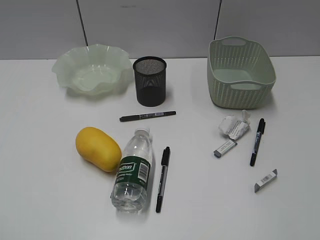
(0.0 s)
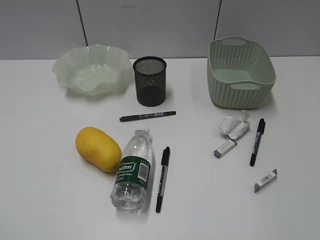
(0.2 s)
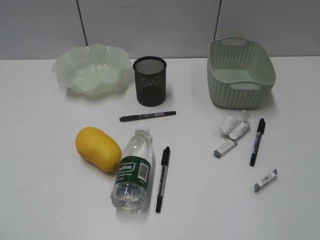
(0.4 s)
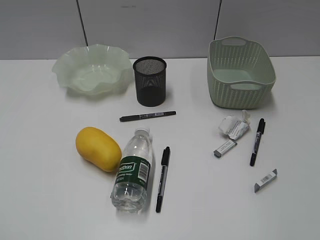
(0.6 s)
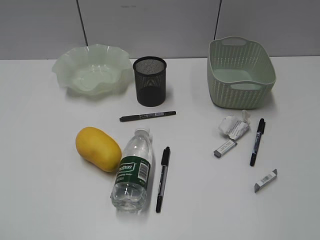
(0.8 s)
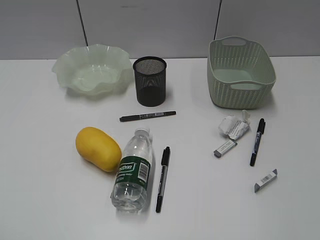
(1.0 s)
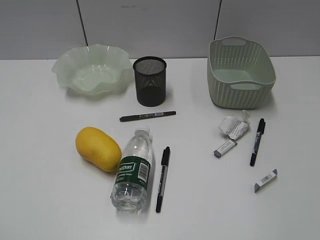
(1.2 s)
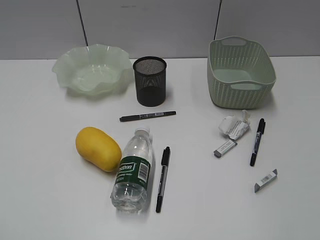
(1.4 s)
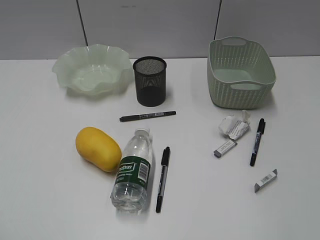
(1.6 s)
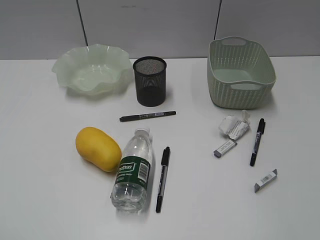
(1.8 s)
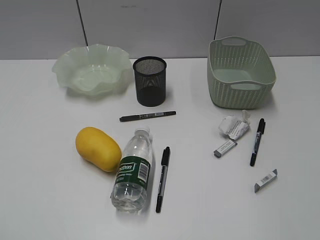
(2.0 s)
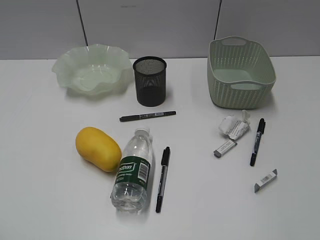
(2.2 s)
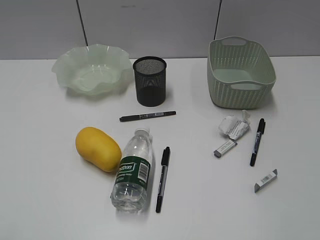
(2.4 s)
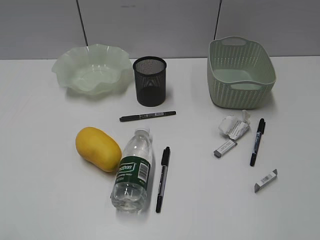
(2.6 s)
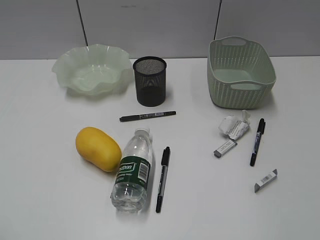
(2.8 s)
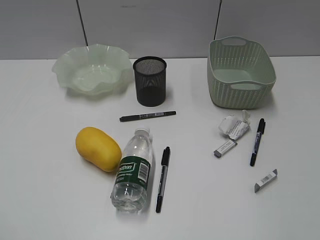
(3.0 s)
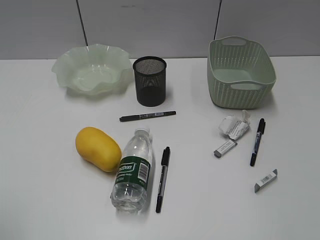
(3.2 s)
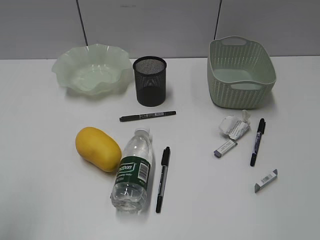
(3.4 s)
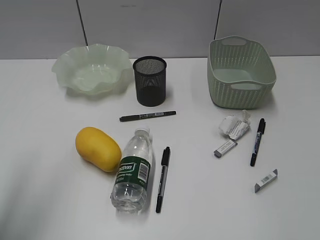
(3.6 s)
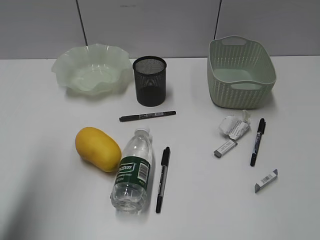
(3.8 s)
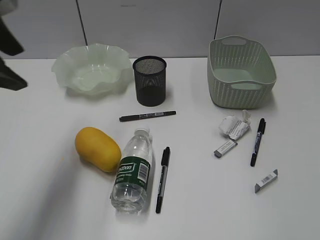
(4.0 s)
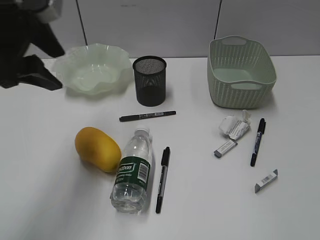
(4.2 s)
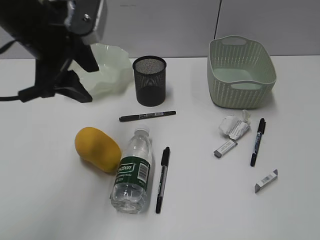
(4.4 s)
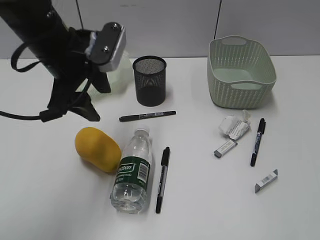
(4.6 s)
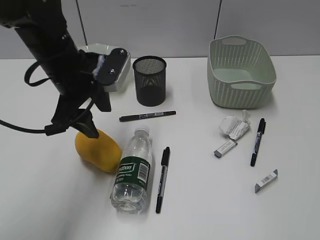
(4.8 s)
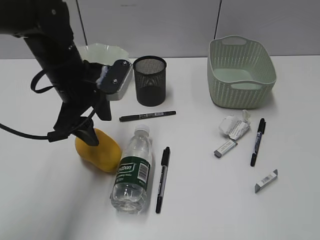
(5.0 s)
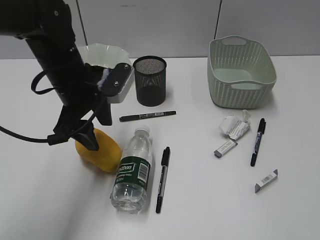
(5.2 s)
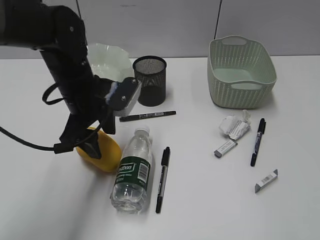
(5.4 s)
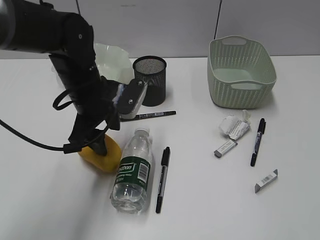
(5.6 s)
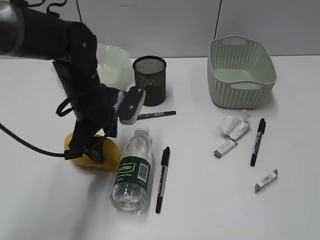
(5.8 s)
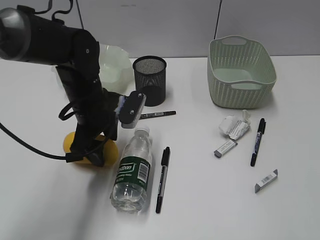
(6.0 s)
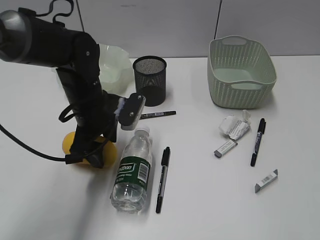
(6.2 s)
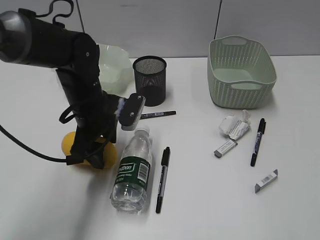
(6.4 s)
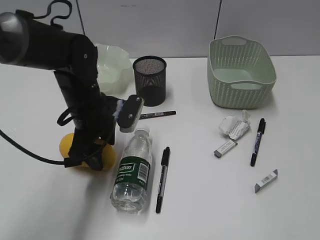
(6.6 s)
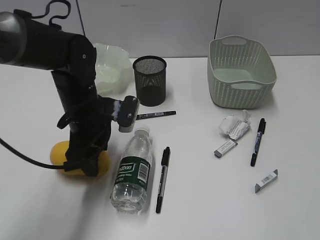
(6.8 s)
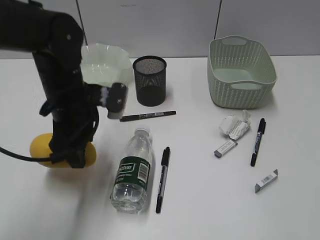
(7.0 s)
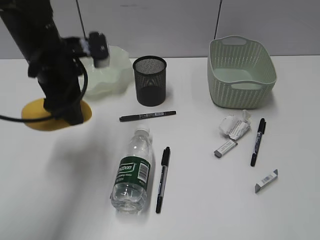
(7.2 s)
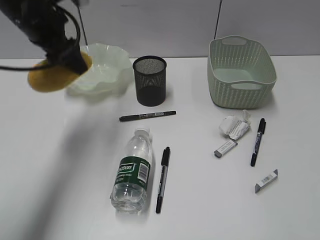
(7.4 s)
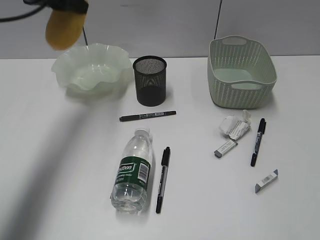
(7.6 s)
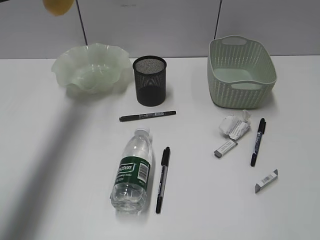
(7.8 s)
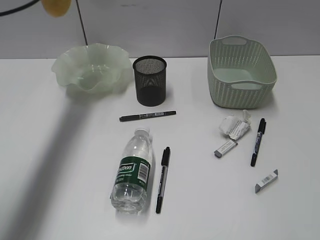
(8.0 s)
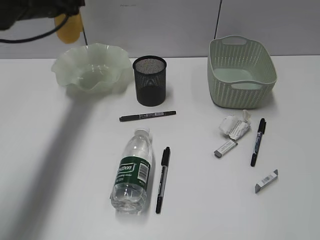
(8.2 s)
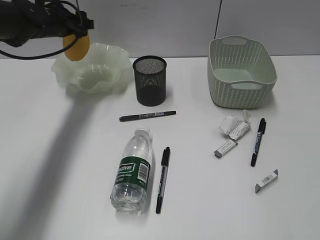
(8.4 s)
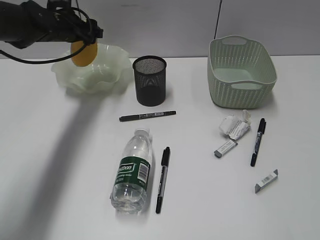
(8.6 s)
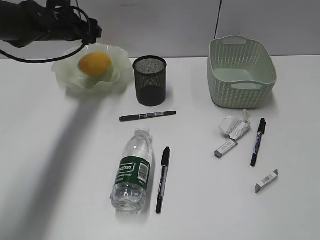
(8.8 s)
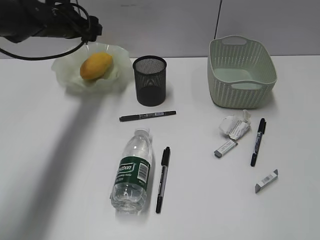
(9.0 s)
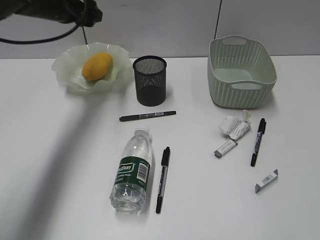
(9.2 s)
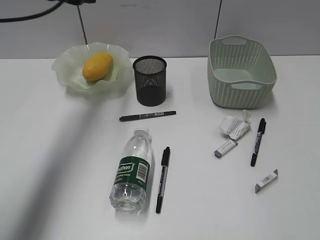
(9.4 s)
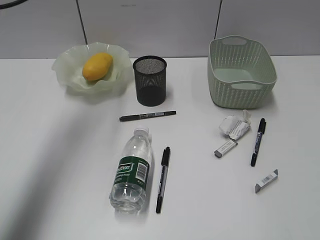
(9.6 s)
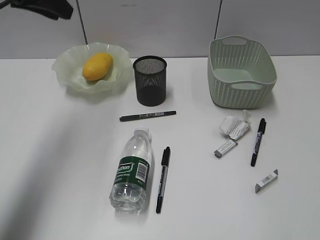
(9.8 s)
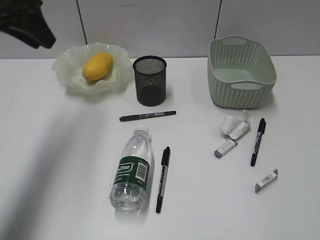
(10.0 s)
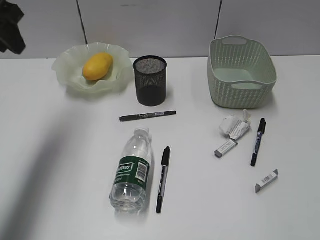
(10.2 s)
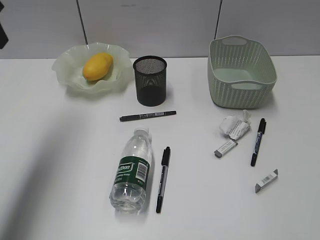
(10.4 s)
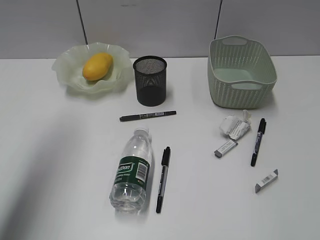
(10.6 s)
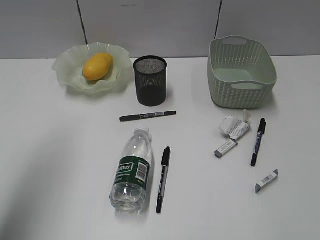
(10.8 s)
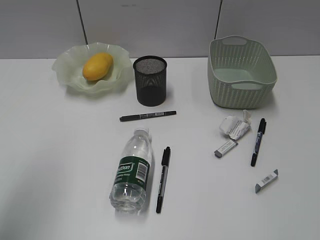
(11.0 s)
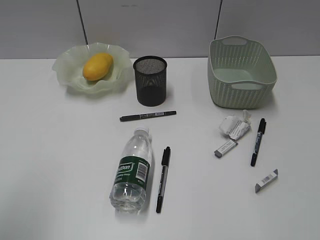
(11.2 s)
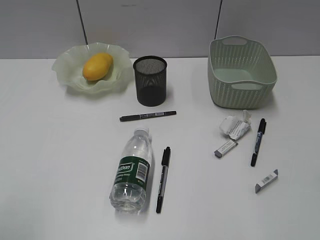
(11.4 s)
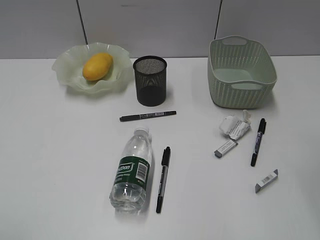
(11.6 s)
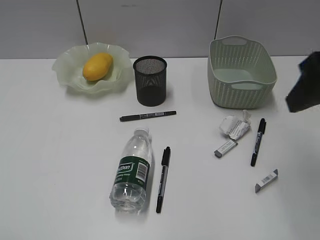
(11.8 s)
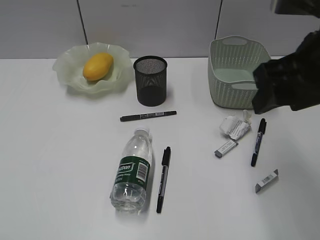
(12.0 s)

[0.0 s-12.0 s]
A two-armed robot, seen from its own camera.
Step, 4.0 to 6.6 s: Grasp the mango with left gripper.
Step, 6.8 to 8.8 s: Place the mango in the plate with left gripper.
3.0 to 4.4 s: The left gripper is displaced forward and to the right by approximately 35 cm.
4.4 to 6.0 s: The left gripper travels downward by roughly 15 cm.
6.0 to 7.6 s: The left gripper heads upward, to the left and forward, covering roughly 20 cm.
7.6 to 9.0 s: The left gripper shifts approximately 15 cm downward and forward.
9.0 to 10.4 s: The left gripper travels backward, upward and to the left by roughly 25 cm, and closes its fingers.
10.4 to 12.0 s: The right gripper is displaced forward and to the left by approximately 25 cm. The left gripper is displaced backward by approximately 35 cm.

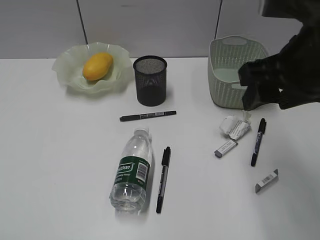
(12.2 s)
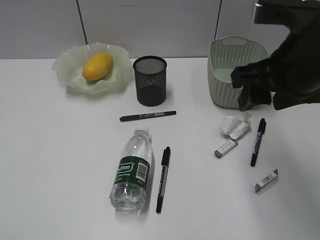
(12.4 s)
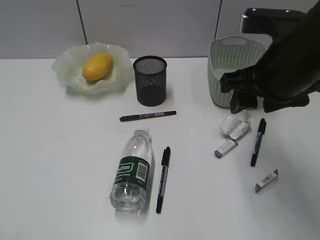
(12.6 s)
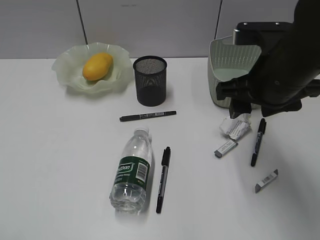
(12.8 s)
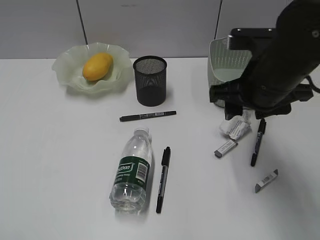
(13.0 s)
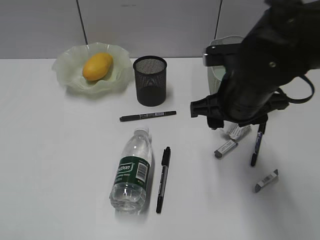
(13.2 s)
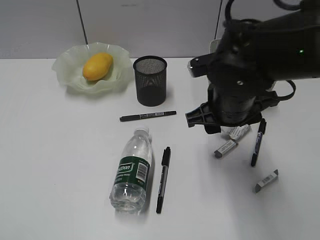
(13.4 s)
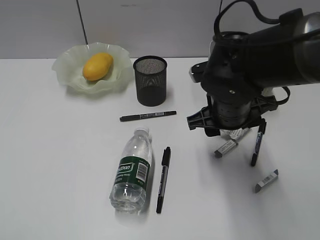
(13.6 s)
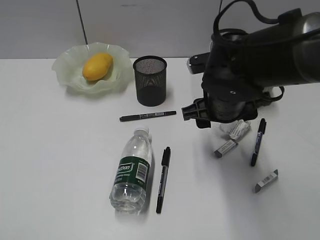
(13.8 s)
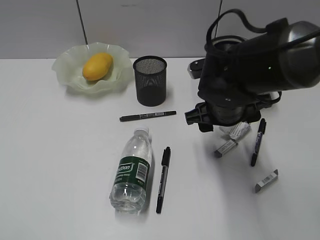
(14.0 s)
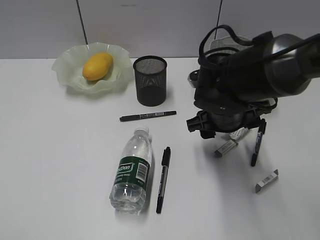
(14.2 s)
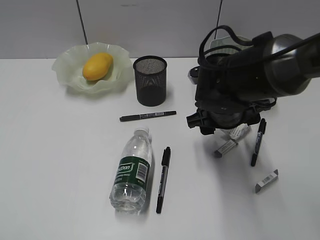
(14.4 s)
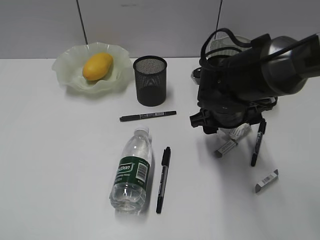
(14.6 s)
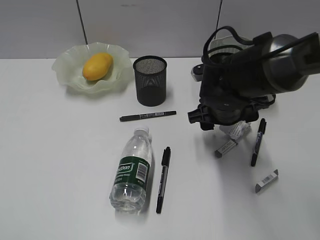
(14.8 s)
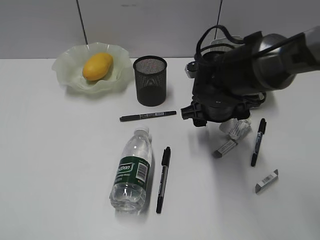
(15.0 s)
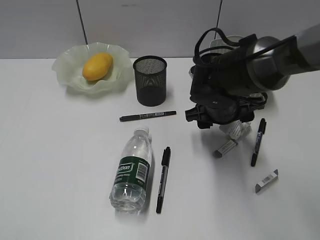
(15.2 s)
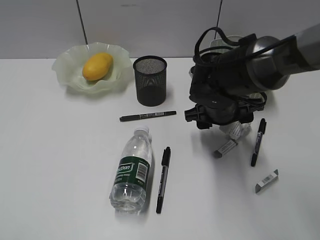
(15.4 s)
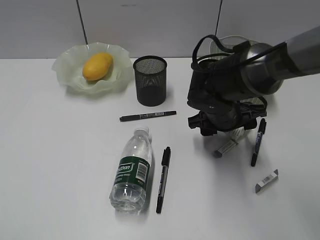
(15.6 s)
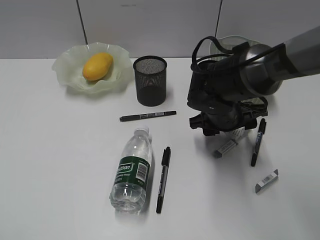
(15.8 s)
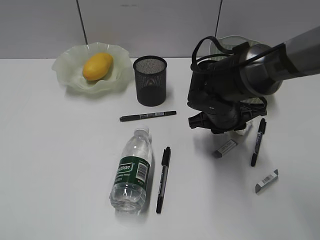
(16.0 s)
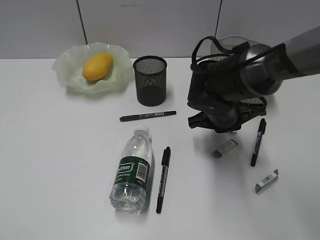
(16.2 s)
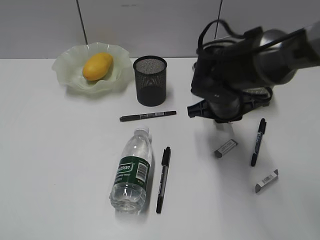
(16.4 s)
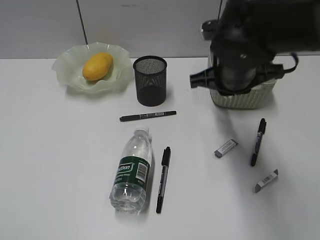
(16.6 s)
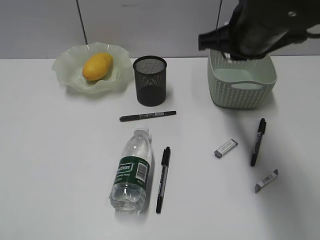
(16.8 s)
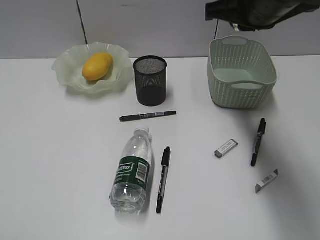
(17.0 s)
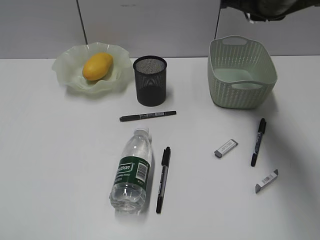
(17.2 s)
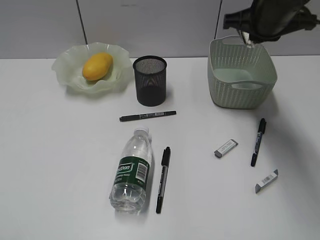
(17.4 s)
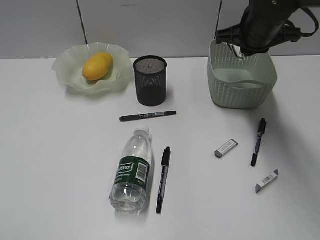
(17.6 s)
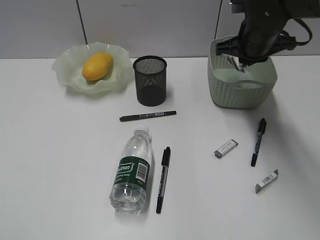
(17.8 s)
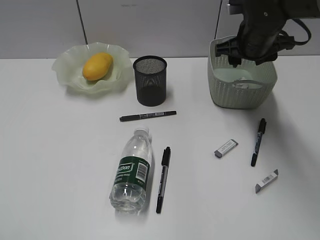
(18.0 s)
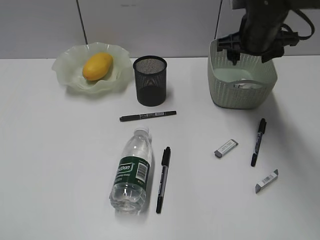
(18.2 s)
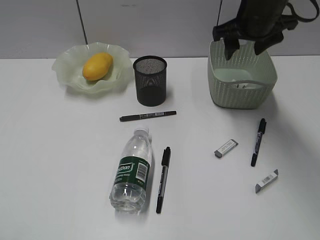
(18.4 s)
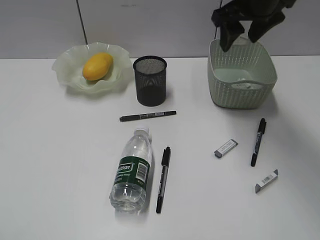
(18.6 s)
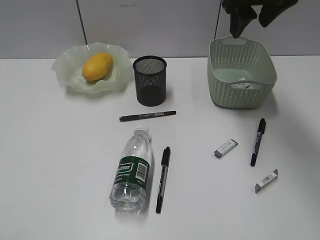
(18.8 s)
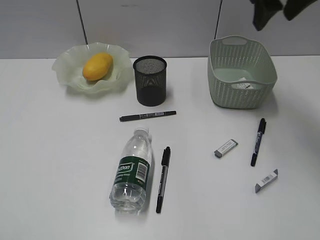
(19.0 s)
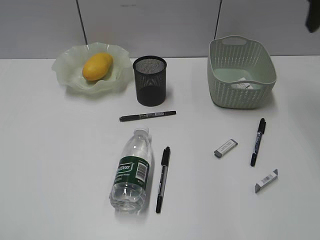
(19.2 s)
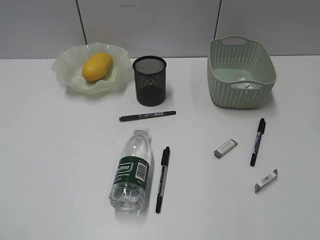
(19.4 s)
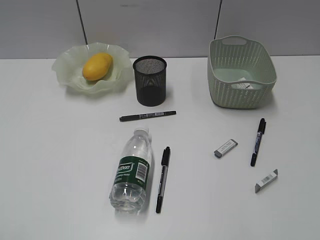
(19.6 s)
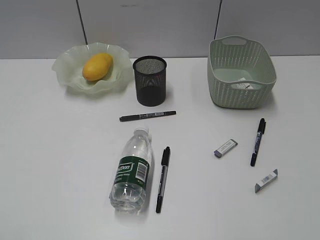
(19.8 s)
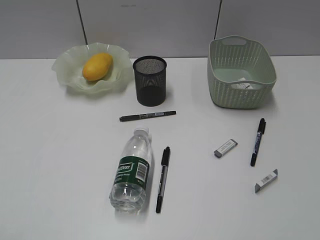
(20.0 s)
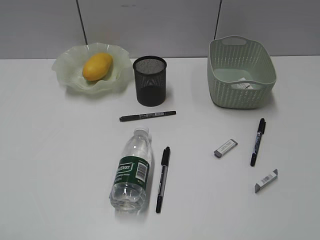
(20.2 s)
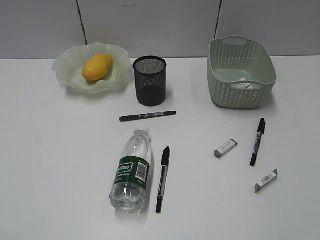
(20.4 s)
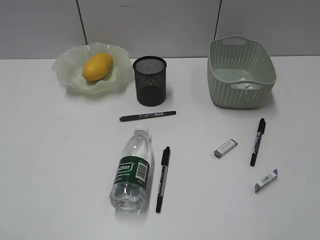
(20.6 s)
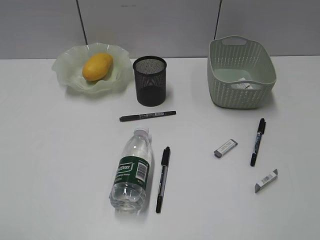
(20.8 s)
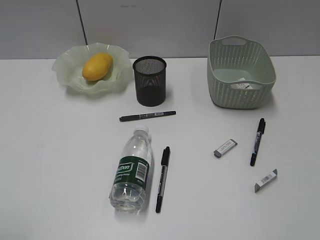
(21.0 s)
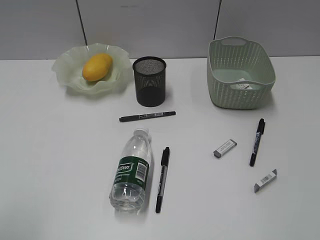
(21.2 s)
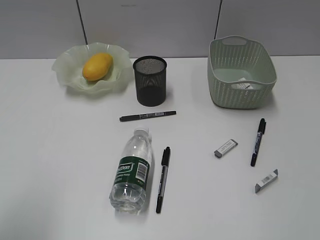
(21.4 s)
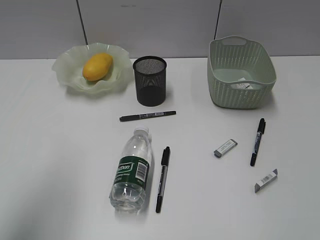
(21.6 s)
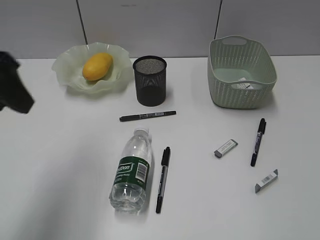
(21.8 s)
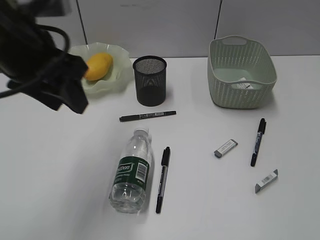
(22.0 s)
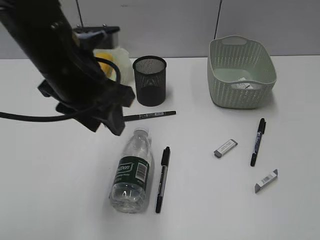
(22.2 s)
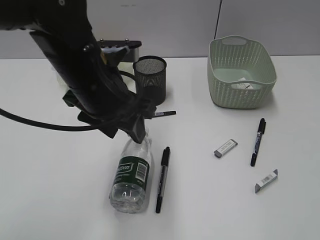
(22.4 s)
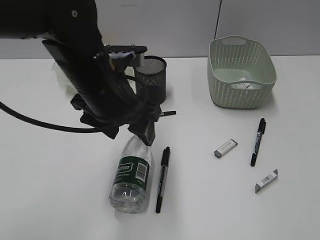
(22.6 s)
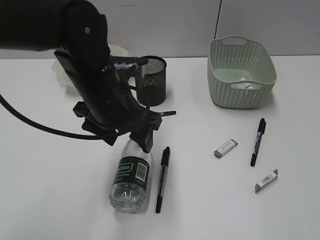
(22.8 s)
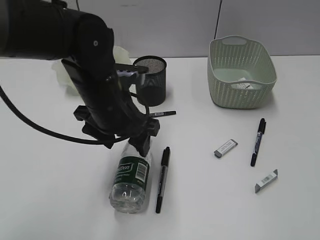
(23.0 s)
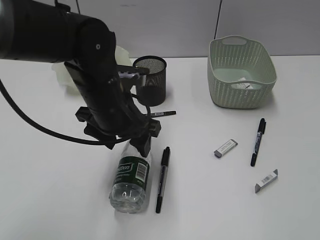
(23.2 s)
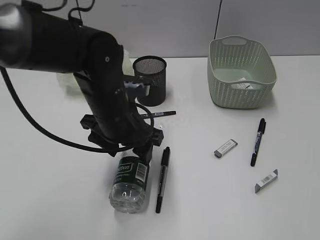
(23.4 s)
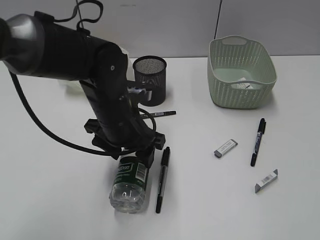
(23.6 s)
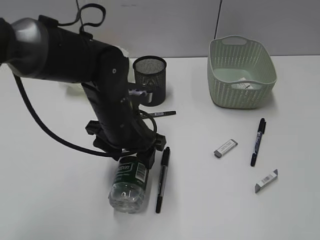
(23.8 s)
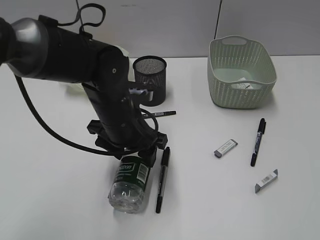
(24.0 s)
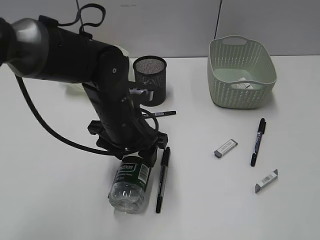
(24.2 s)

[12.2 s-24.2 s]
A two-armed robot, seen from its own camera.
Step, 12.2 to 16.0 s: Grasp the waste paper with right gripper.
Step, 16.2 to 18.2 s: Place the waste paper in the basket with right gripper.
12.2 to 13.8 s: The right gripper heads downward, to the left and forward, covering some 15 cm.
13.8 to 15.2 s: The right gripper changes place by roughly 5 cm.
15.2 to 16.6 s: The right gripper shifts some 10 cm upward, and closes.
16.6 to 18.2 s: The right gripper moves forward and to the right, roughly 10 cm, and opens up.
18.2 to 19.8 s: The right gripper is displaced backward, to the right and upward by some 30 cm.
19.8 to 21.2 s: The right gripper goes about 20 cm backward. Meanwhile the left gripper is displaced forward by approximately 5 cm.
21.2 to 22.6 s: The left gripper travels to the right, forward and downward by about 35 cm, and opens up.
22.6 to 24.2 s: The left gripper is displaced downward by some 10 cm.
